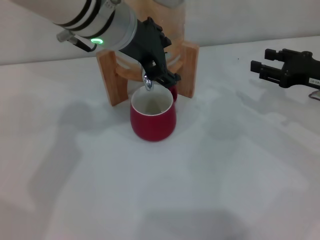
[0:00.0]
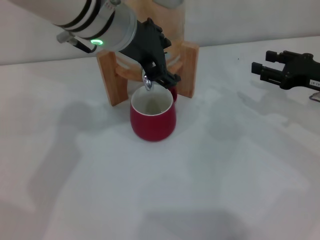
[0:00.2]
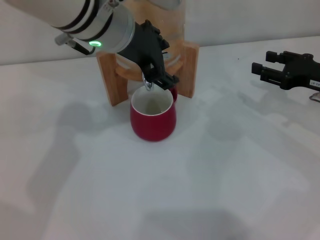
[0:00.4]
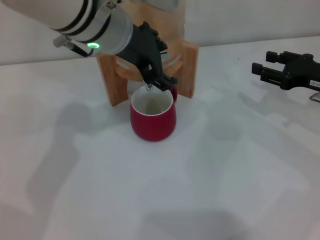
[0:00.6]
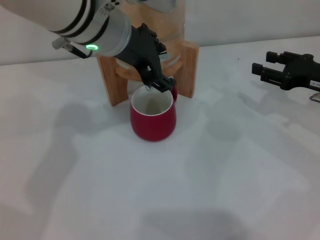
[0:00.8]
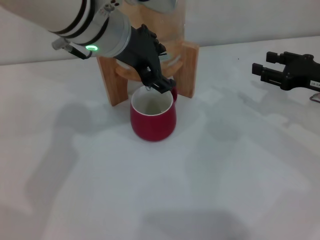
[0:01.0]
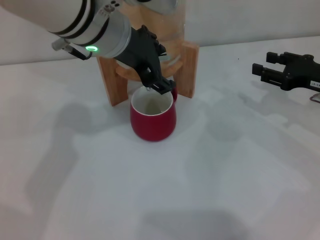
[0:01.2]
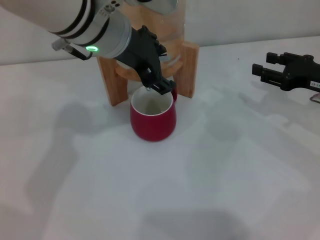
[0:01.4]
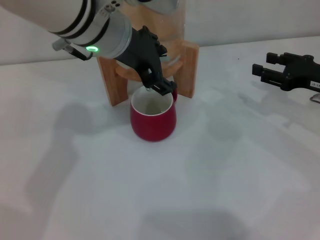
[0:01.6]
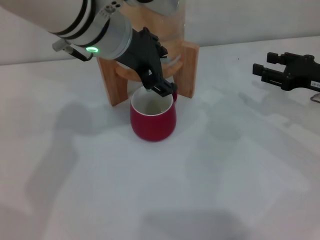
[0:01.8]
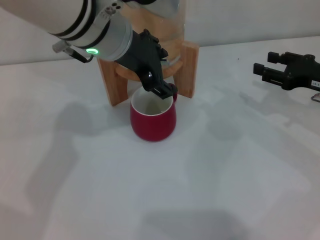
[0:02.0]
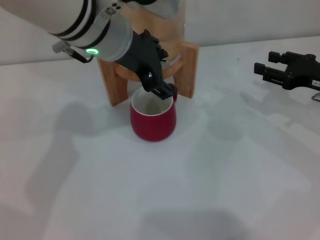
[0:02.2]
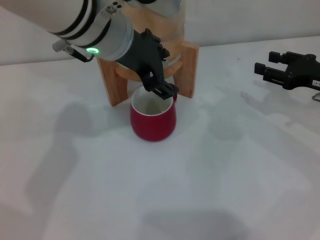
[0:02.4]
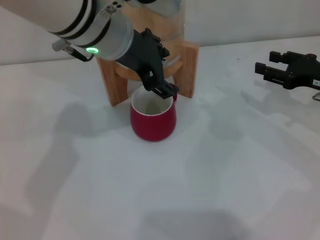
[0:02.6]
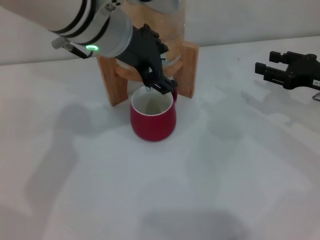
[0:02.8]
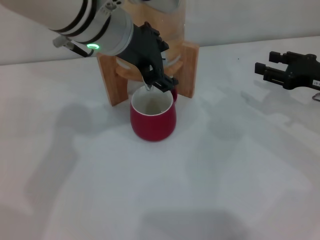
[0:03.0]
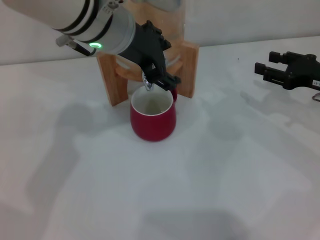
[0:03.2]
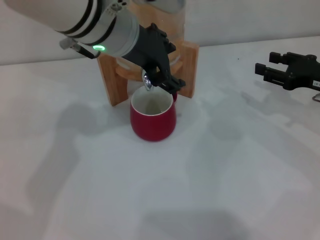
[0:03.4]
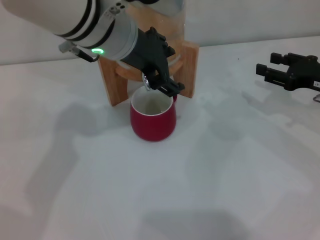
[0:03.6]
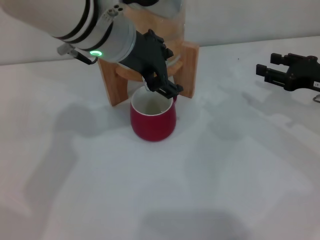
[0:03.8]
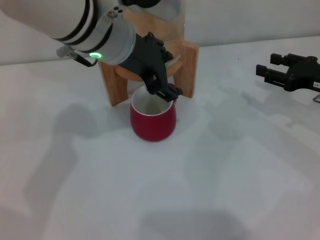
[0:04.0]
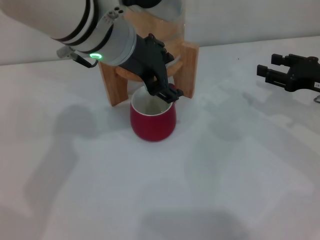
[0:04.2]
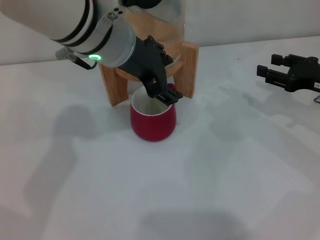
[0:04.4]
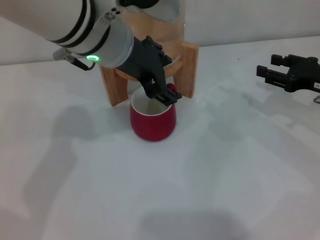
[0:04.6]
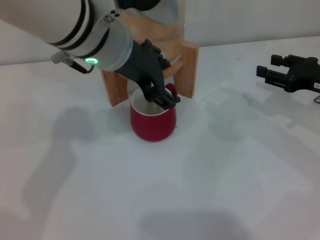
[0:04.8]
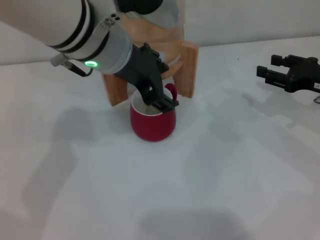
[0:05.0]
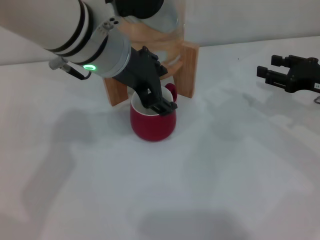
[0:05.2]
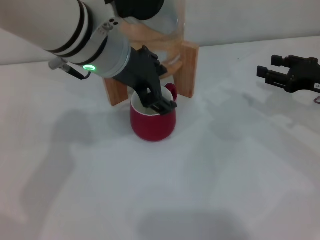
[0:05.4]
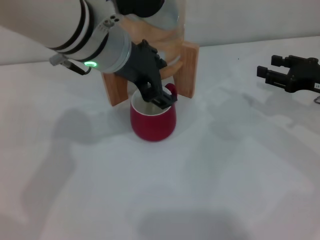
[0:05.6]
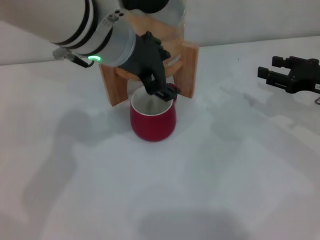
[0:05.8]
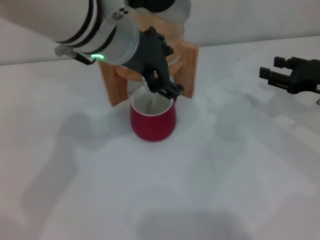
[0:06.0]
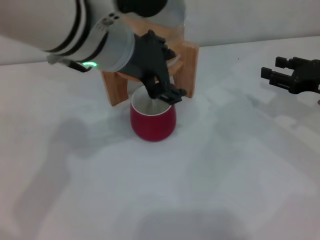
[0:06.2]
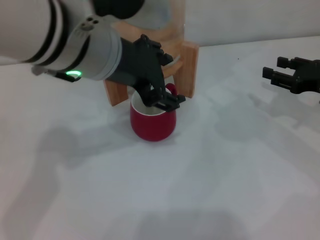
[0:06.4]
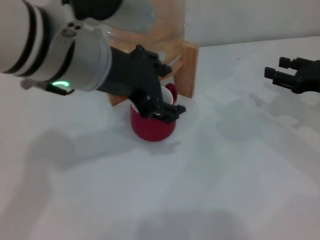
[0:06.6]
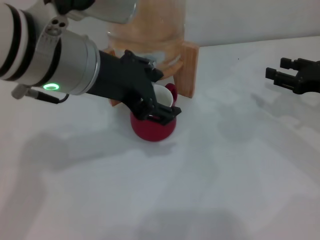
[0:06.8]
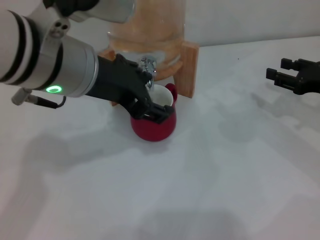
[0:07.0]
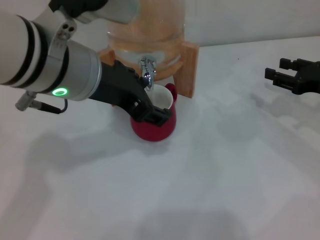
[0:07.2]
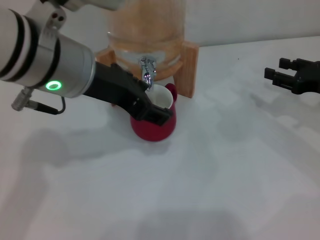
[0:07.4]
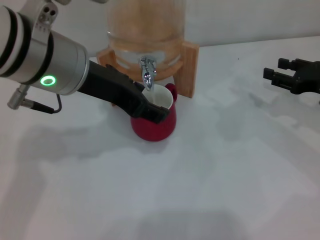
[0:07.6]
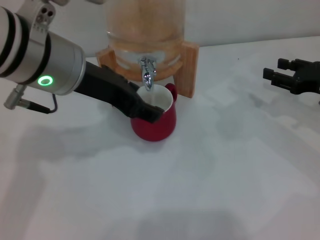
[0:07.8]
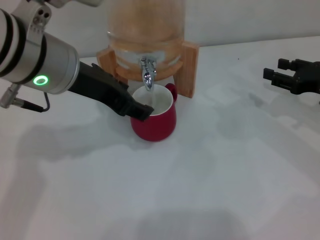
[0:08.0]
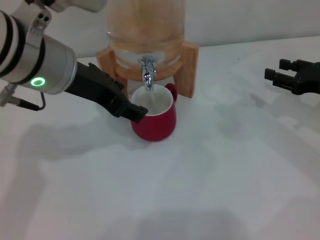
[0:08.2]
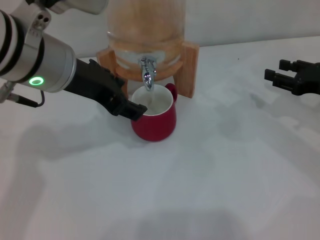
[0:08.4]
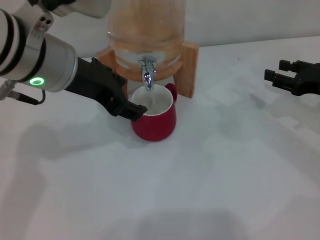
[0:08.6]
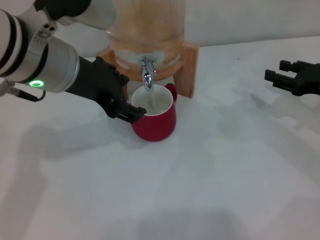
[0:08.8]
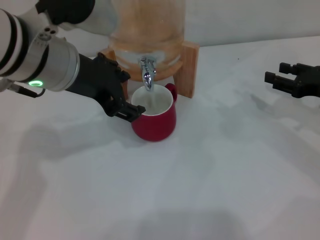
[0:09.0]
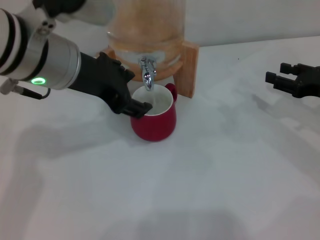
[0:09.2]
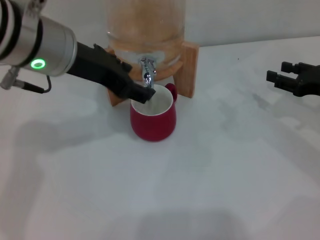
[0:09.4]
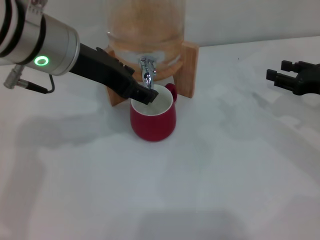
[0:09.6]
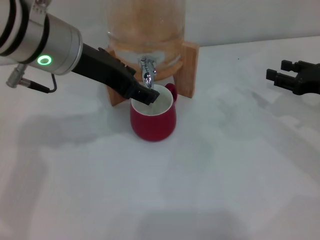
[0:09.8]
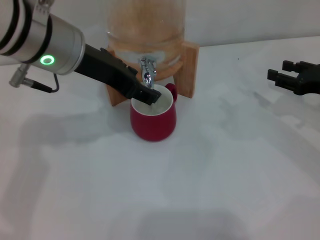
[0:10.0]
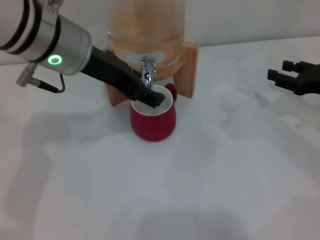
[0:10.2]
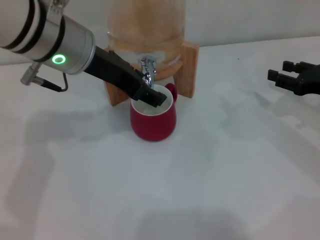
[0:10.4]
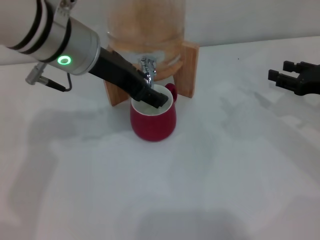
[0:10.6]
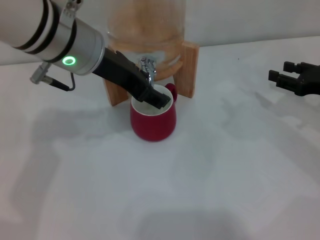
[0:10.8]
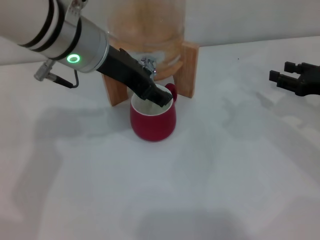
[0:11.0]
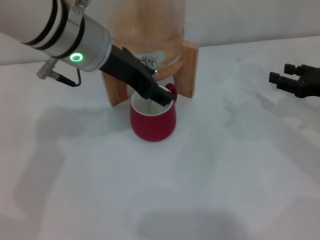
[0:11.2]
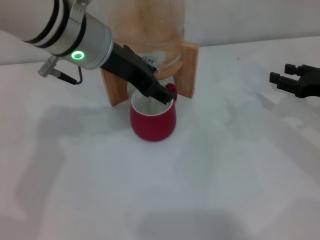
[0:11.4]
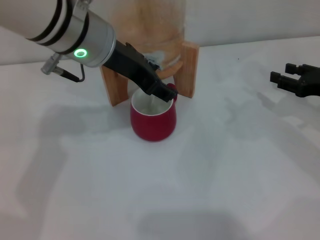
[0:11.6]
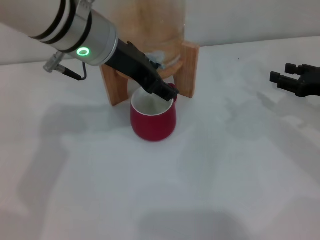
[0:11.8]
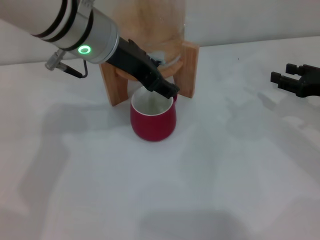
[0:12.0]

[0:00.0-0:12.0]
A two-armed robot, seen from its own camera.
Task of the whole recording: the right gripper pick up the red cup and place it horizontally under the faucet, the left gripper turn on the faucet to fill the cup, and then turn off the faucet.
Step, 0:00.0 to 0:07.2: Open the dispenser valve and fill the cup with water with the left gripper.
0:00.0 to 0:03.0: Both grippers stay about where they are.
0:03.0 to 0:04.4: The two grippers keep their place.
0:04.4 to 0:06.0: The grippers stay close to where they were, moving slightly.
0:06.0 to 0:07.6: The left gripper shifts about 5 cm to the left.
0:10.4 to 0:12.0: There are only small adjustments of the grippers.

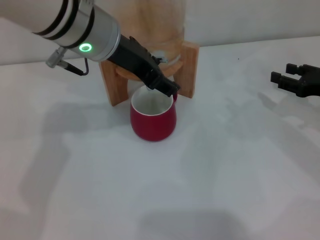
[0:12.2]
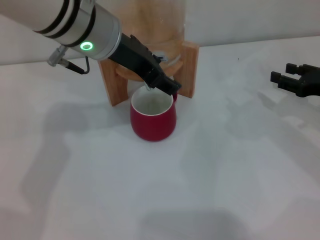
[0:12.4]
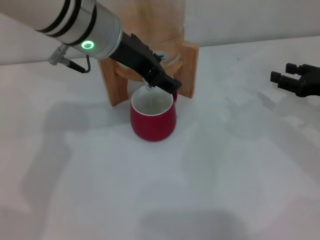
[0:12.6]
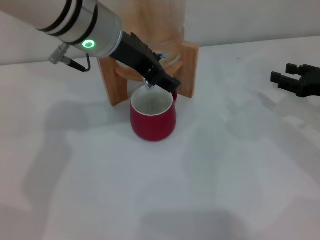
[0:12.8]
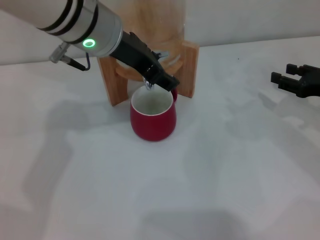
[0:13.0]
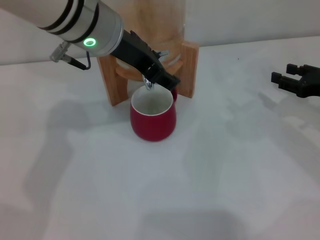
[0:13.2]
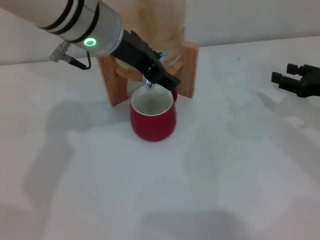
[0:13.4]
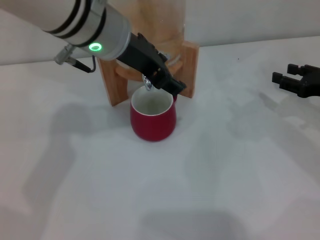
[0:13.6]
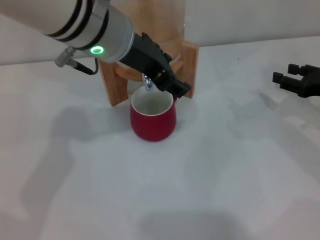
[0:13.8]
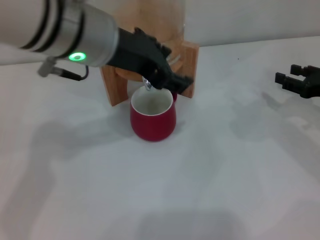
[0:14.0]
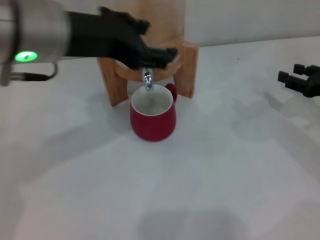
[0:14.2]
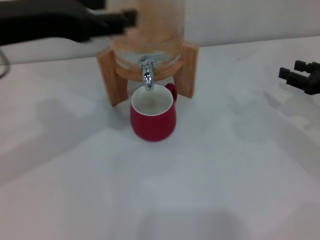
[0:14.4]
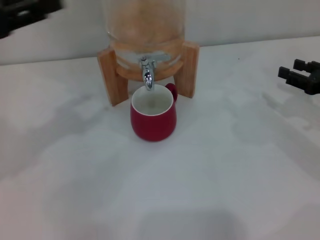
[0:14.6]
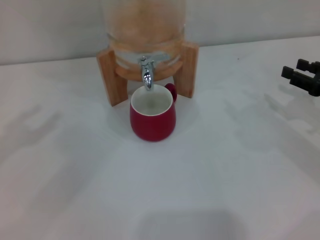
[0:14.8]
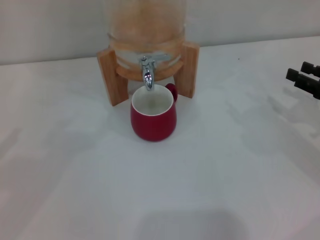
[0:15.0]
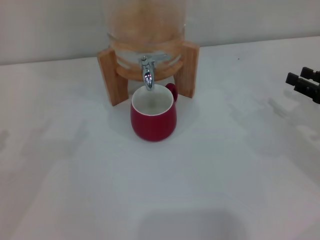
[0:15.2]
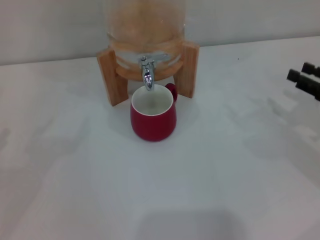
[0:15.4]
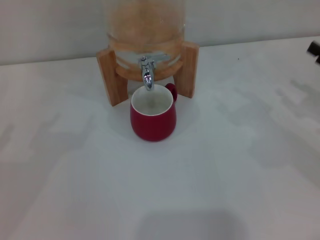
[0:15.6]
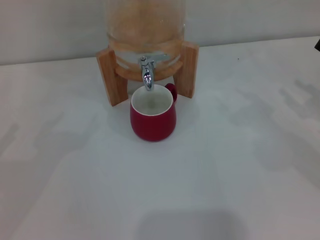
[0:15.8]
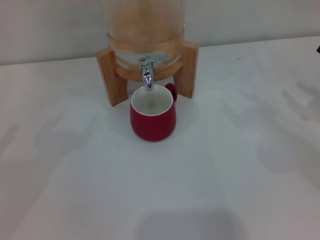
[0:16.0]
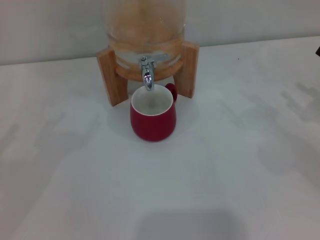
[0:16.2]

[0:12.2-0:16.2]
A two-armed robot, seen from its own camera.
Task of the whole recording: the right gripper pick up the red cup and place it horizontally under the faucet, the left gripper turn on the faucet to fill the cup, and then turn off the faucet.
0:12.2 to 0:13.6: Both grippers stay put.
0:13.6 to 0:14.8: The left gripper heads to the left, covering some 30 cm.

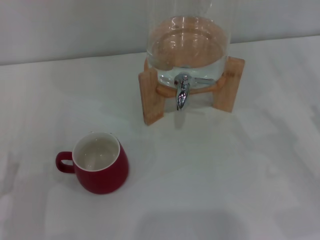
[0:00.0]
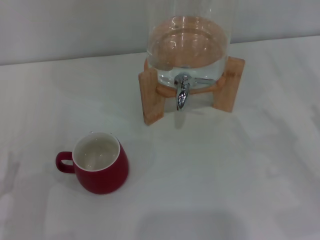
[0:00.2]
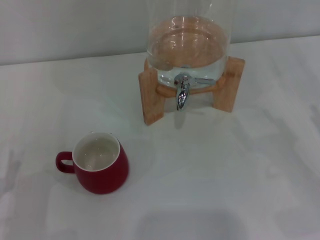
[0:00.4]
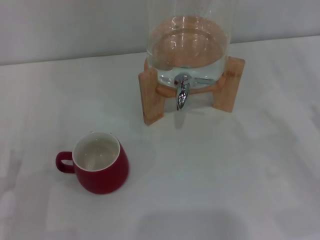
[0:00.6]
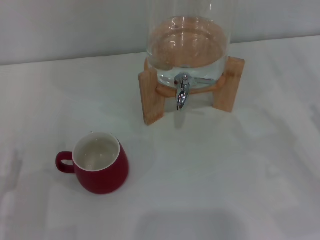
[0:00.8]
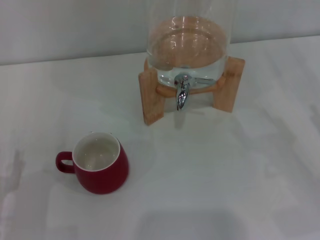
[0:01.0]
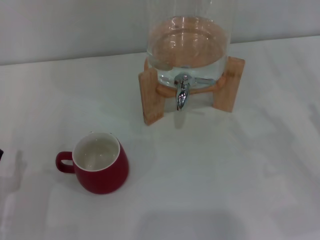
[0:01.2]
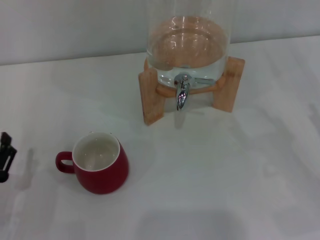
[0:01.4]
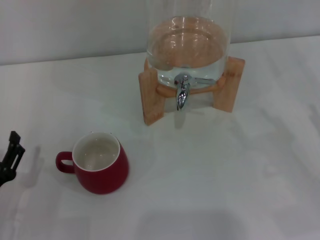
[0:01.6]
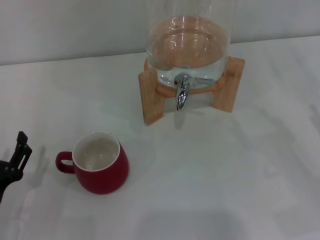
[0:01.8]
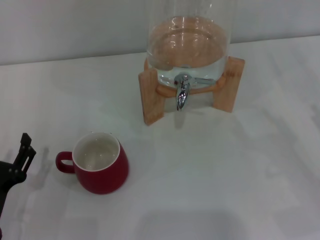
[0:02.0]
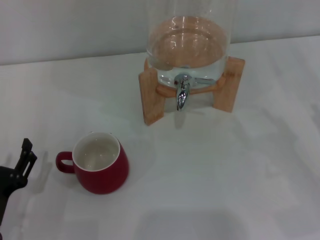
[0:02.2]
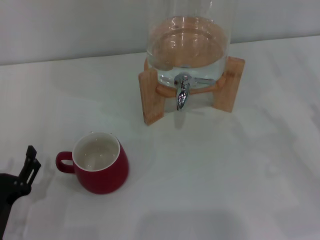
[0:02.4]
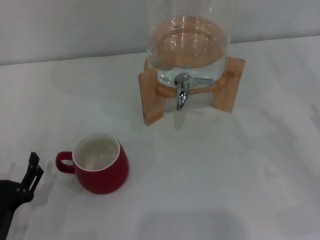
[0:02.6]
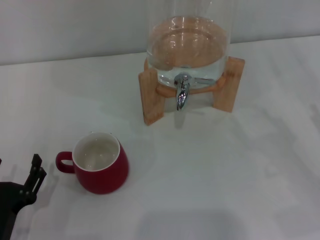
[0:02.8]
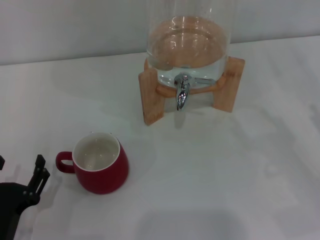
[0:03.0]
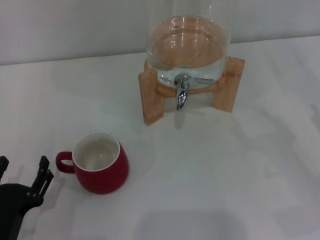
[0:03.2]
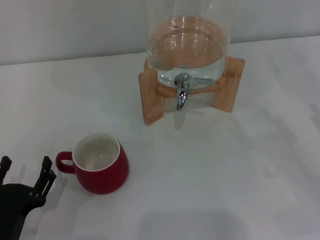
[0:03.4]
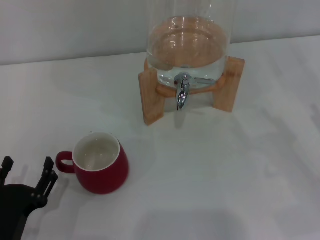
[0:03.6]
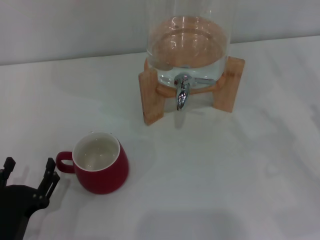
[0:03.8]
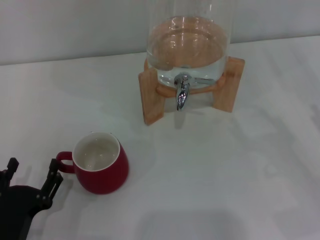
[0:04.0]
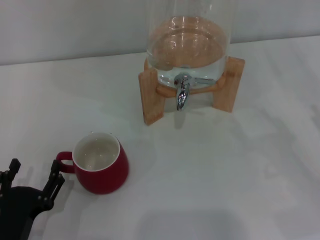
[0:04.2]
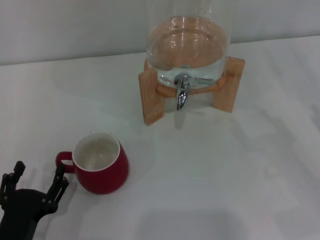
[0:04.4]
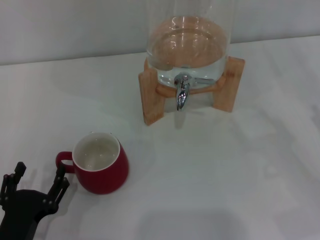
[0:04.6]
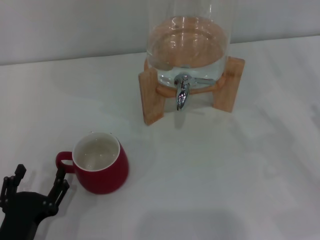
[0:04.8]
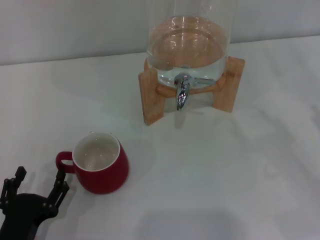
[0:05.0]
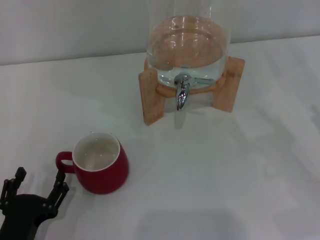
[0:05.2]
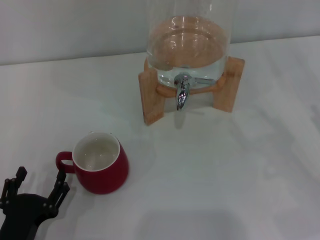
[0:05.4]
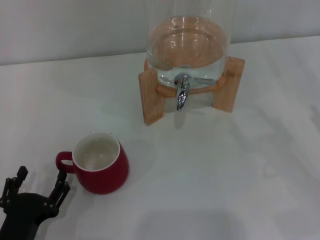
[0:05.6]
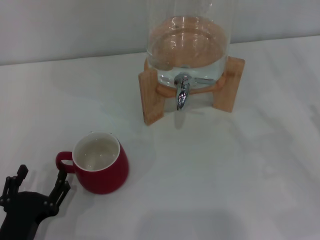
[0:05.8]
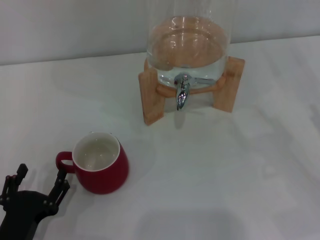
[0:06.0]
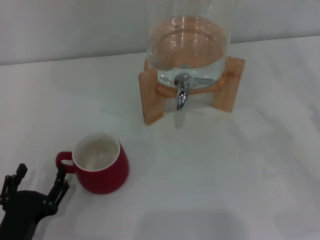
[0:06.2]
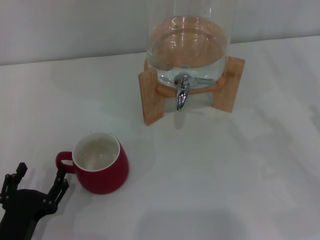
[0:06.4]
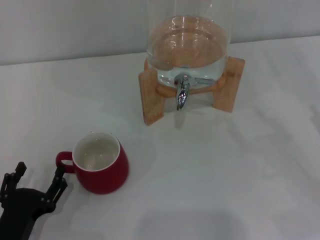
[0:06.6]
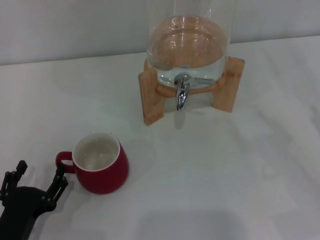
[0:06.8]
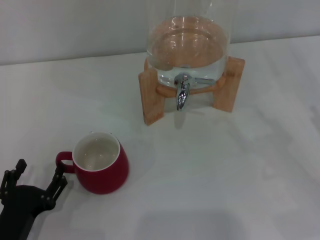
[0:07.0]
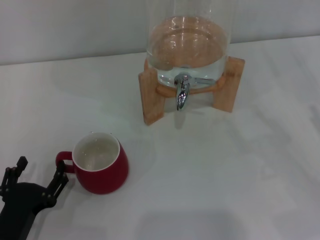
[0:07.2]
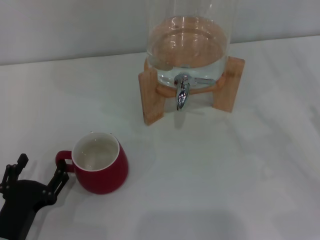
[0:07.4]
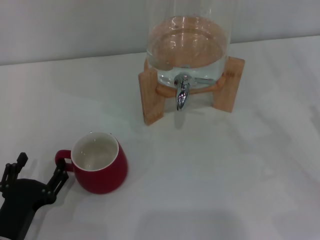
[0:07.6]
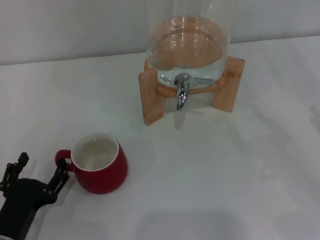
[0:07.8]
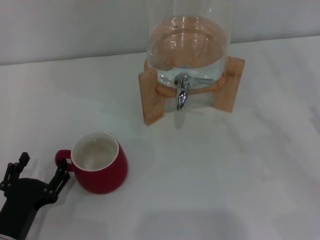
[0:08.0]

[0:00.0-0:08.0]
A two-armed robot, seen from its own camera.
Task of the whole recording: the left gripper pick up the red cup and place it horizontally under the faucet, the right gripper turn on the faucet to fill the cup, and then turn off the faucet.
0:00.0 to 0:03.2: There are only small adjustments of the grippers.
0:03.2 to 0:04.8: The grippers make only small movements.
0:04.8 to 0:06.4: The two grippers keep their place.
0:06.4 to 0:08.0: The grippers make only small movements.
